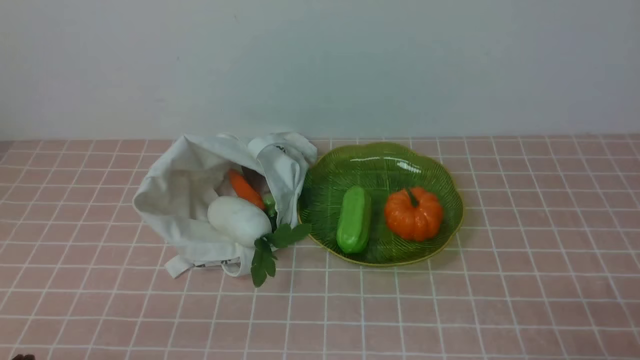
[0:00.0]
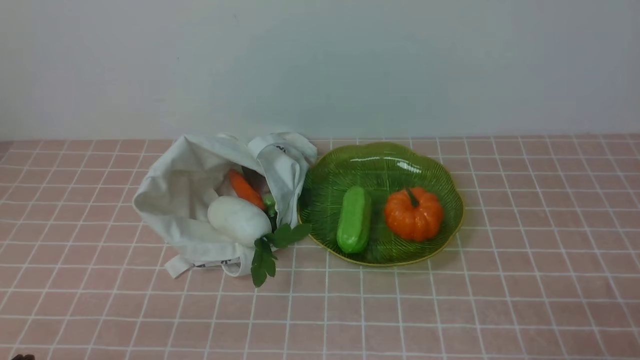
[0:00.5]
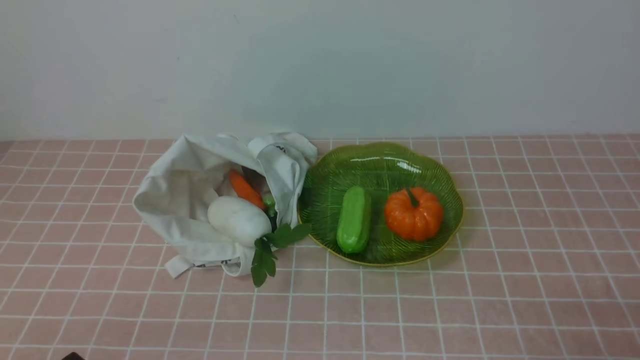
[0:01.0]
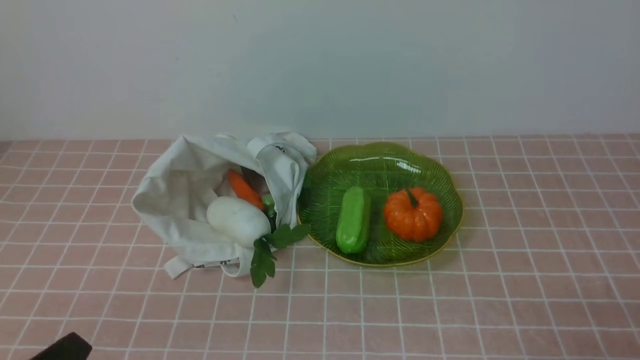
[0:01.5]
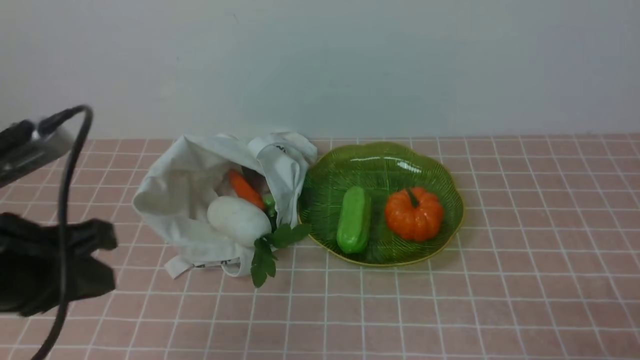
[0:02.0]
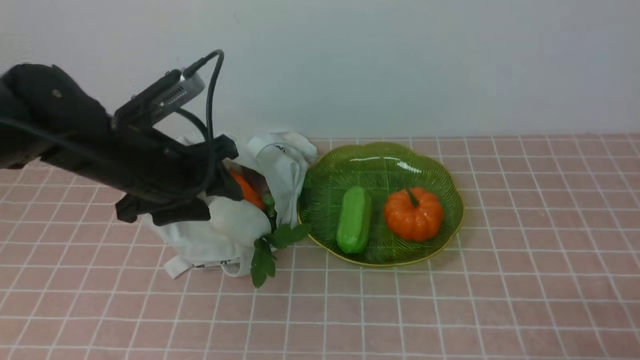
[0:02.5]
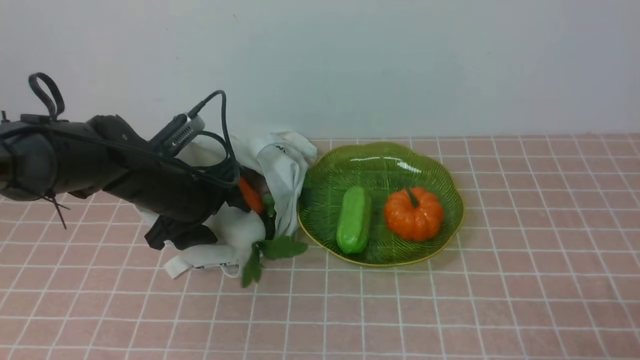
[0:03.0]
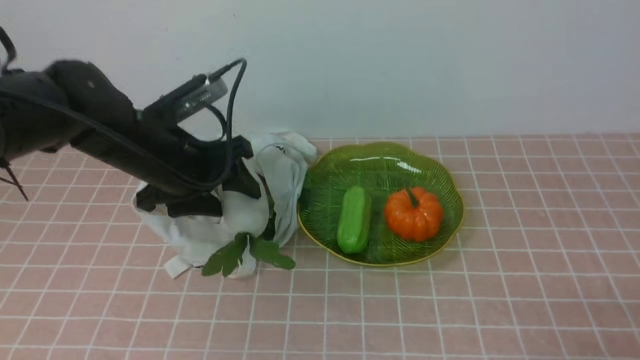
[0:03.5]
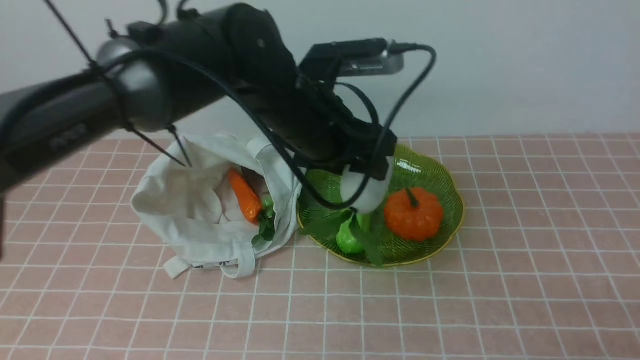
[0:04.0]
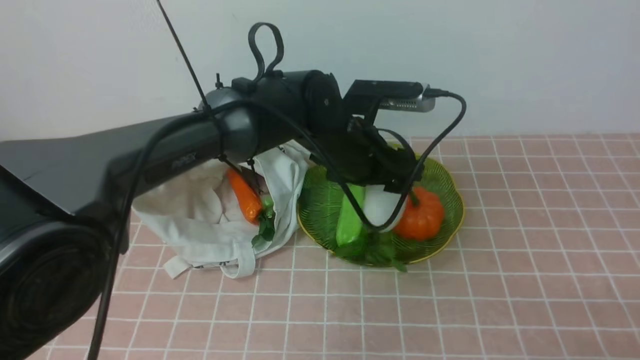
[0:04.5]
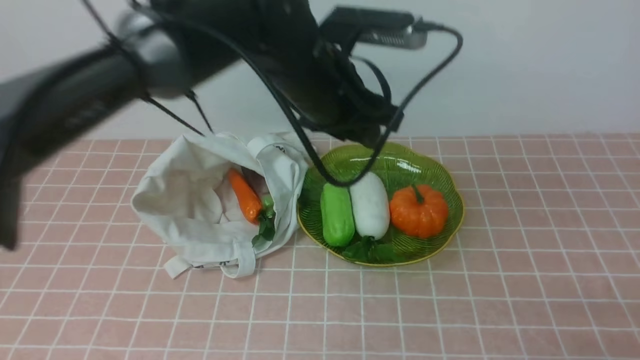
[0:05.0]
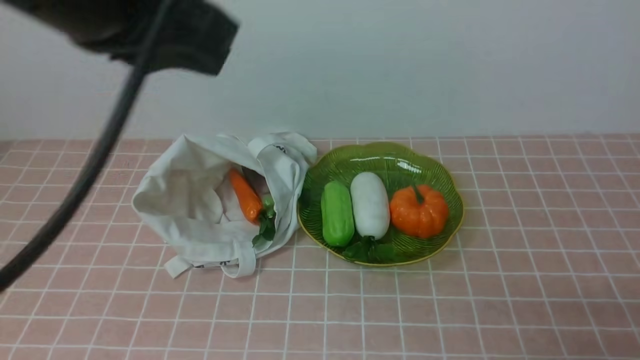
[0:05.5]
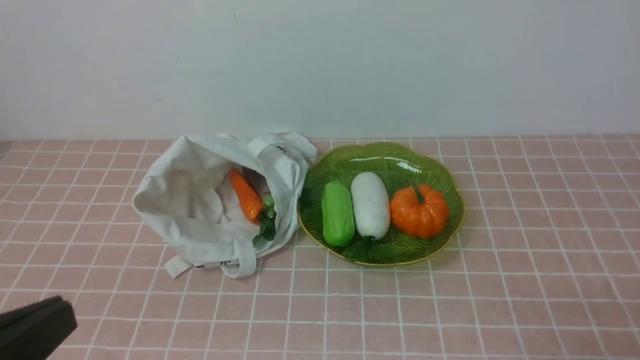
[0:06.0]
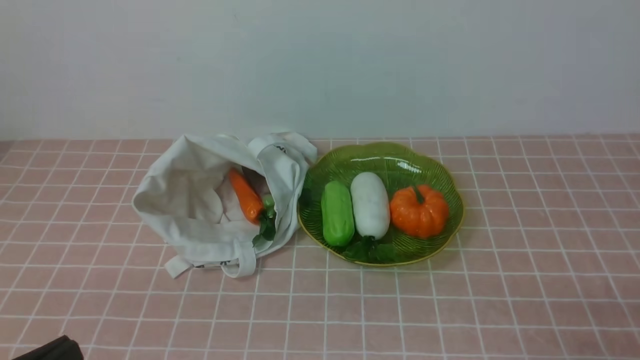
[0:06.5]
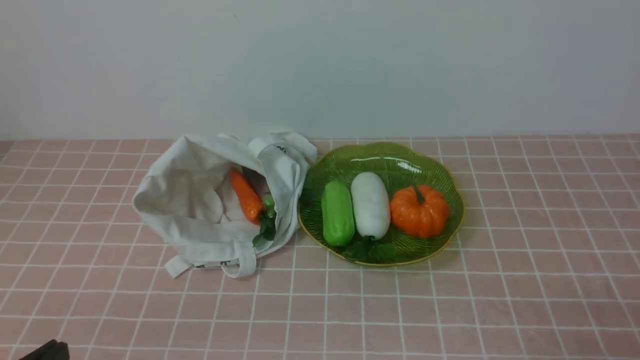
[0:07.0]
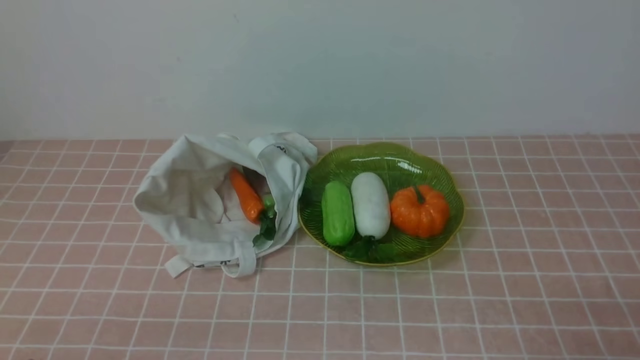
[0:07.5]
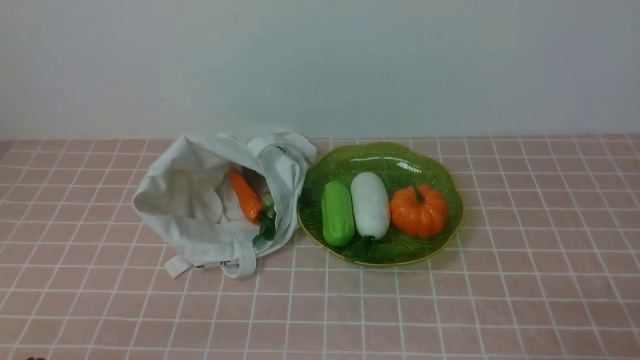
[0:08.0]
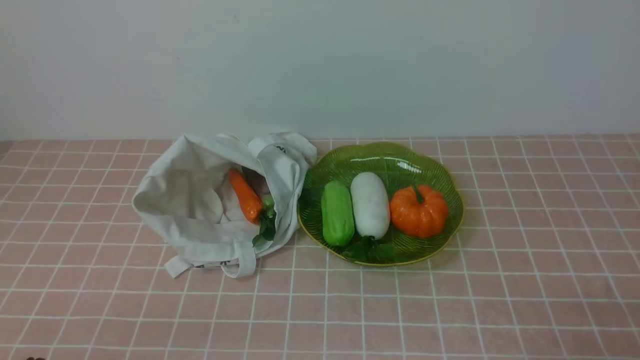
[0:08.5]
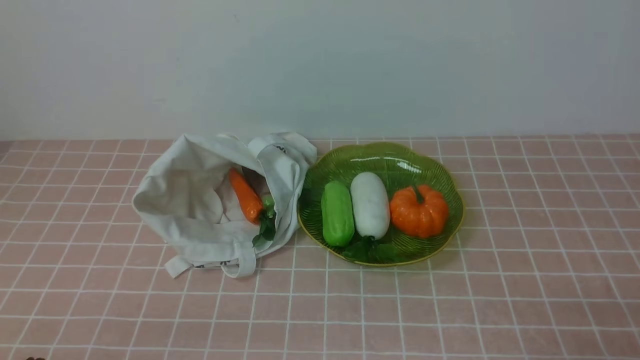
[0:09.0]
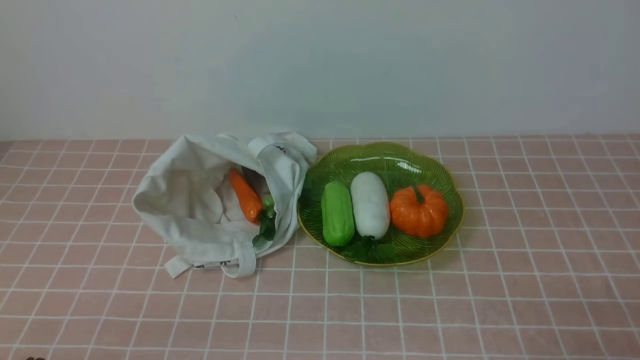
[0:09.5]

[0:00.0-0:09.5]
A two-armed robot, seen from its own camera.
Task of the whole recording: take vegetables from bag on pink coffee tablecloth place on plate.
Step, 0:00.0 to 0:03.0: Grasp the radish with left gripper.
Step, 0:03.5 to 0:05.0: Place the radish on the plate with left gripper.
0:02.0 to 0:04.0: The left gripper goes approximately 30 cm forward and to the right, and opens up.
0:04.0 to 0:05.5: The left gripper shifts about 20 cm upward and backward, and closes.
0:05.5 to 0:07.5: The left gripper heads downward, backward and to the left, covering approximately 35 cm.
0:07.5 to 0:09.5: Both grippers stay about where they are.

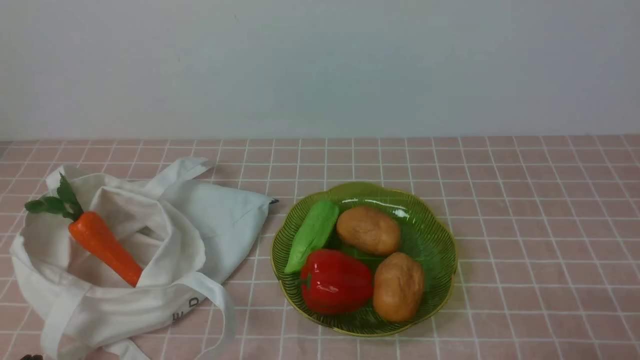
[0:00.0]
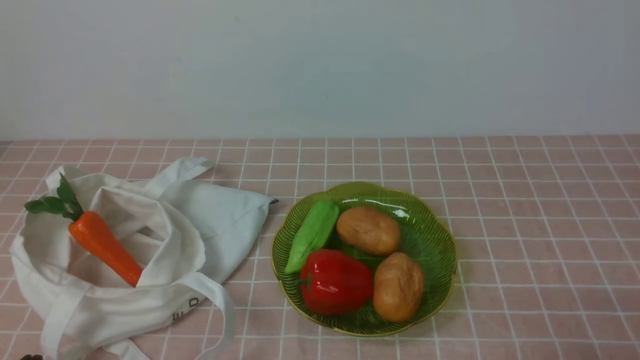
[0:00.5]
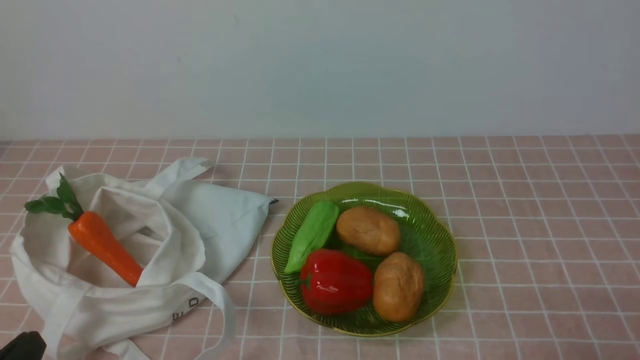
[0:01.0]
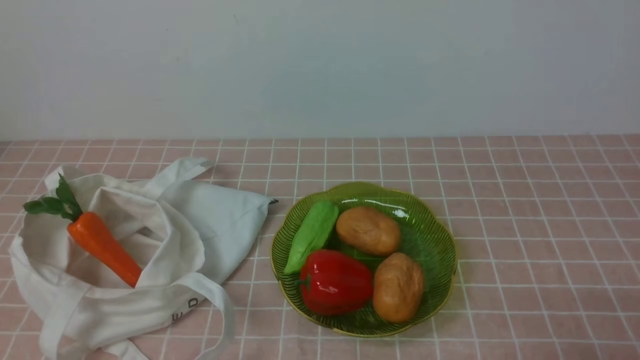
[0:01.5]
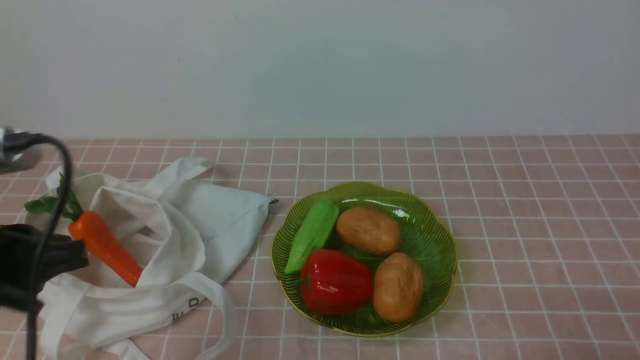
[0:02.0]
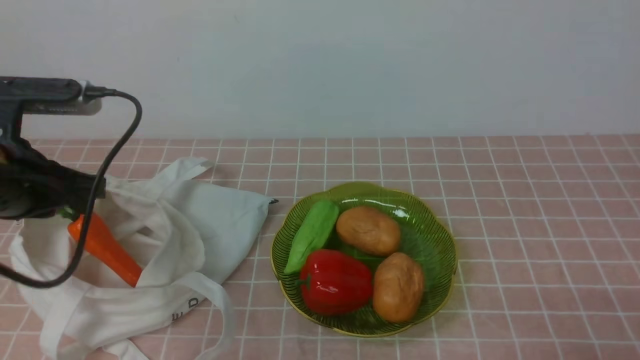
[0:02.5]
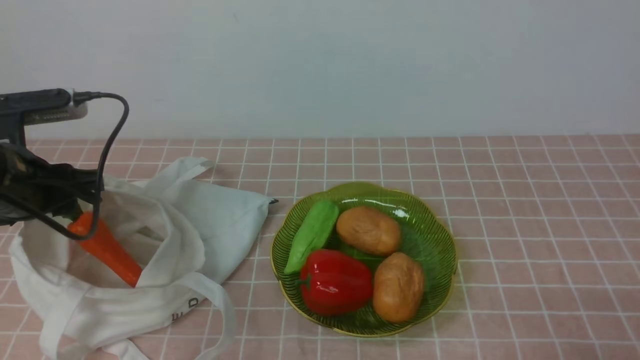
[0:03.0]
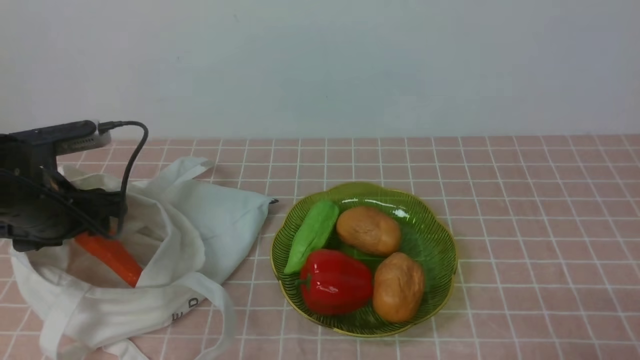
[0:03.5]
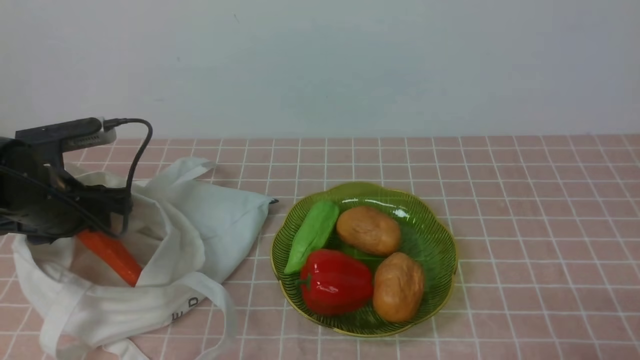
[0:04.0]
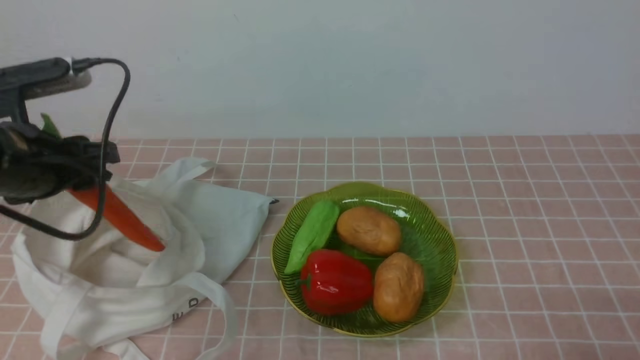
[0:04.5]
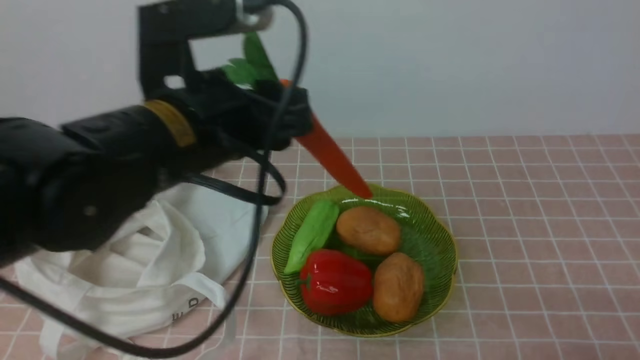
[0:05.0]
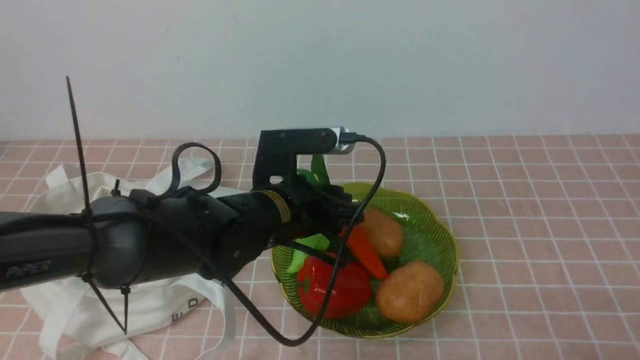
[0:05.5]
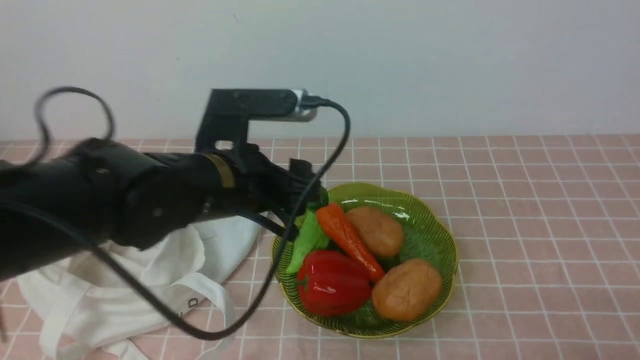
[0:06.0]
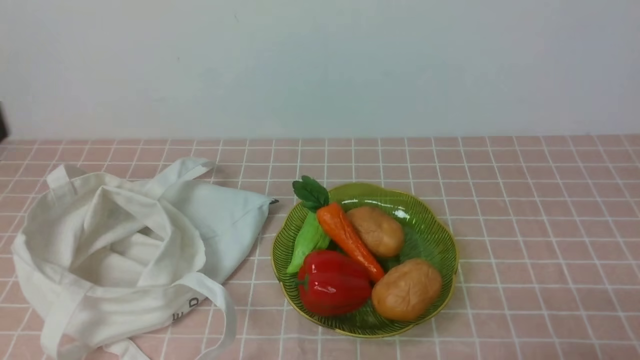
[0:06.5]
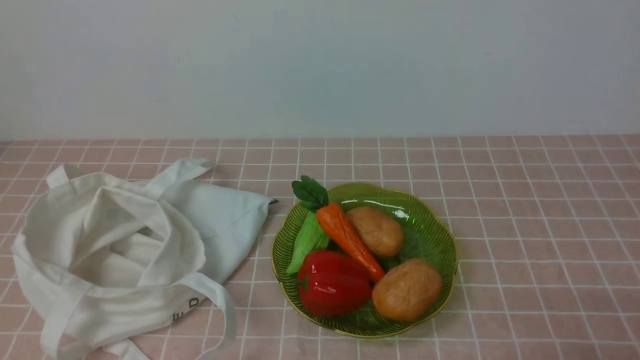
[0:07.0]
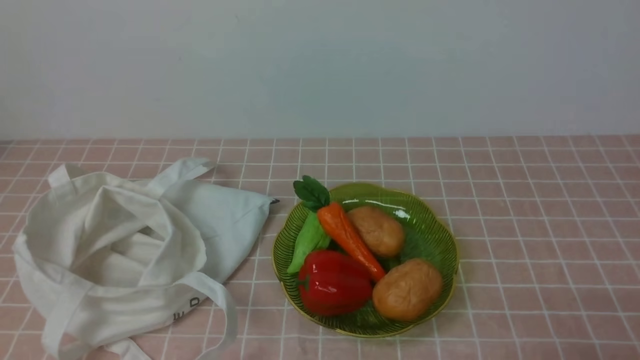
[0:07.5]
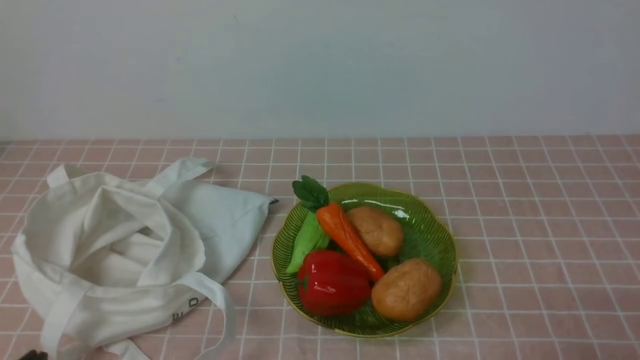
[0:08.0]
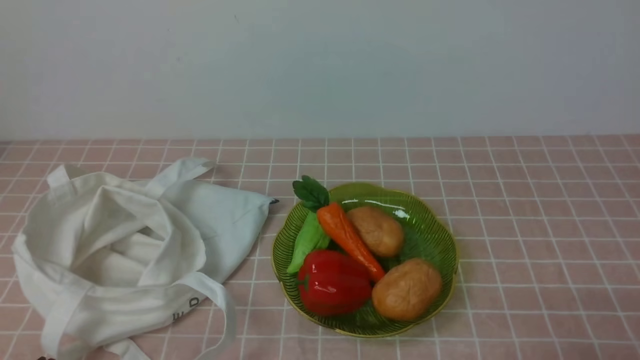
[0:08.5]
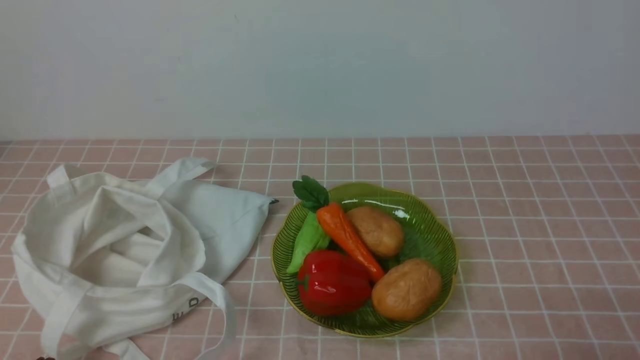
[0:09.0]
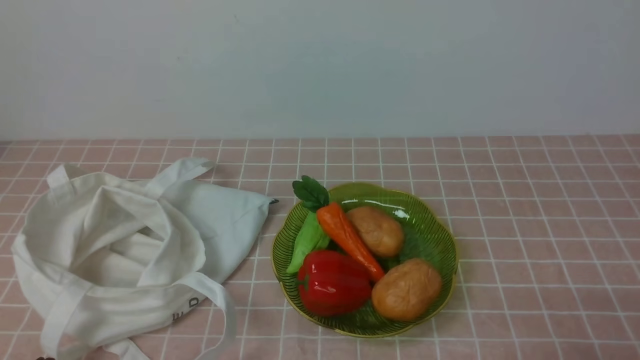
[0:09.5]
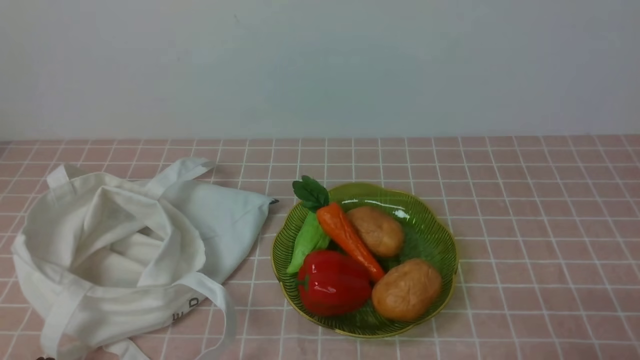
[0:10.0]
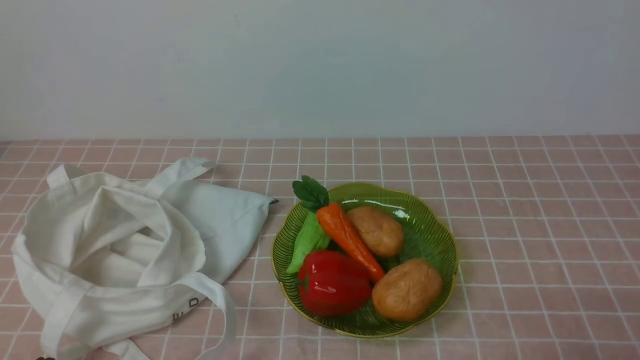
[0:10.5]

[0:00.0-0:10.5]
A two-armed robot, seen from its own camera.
Task of the whole recording: take vegetables from bag on pink coffee tablecloth place on plate.
Step, 0:00.0 to 0:03.5: Grasp the carrot with left gripper.
Step, 0:04.0 to 0:06.0: Place the carrot on the plate with left gripper.
0:02.0 to 0:04.0: The left gripper travels forward and downward by roughly 20 cm, and opens its fingers.
0:04.0 to 0:06.5: The left gripper is displaced backward and upward by approximately 30 cm, reaches approximately 25 cm to the right, then returns, and closes up.
0:06.5 to 0:08.5: The left gripper shifts approximately 20 cm downward.
